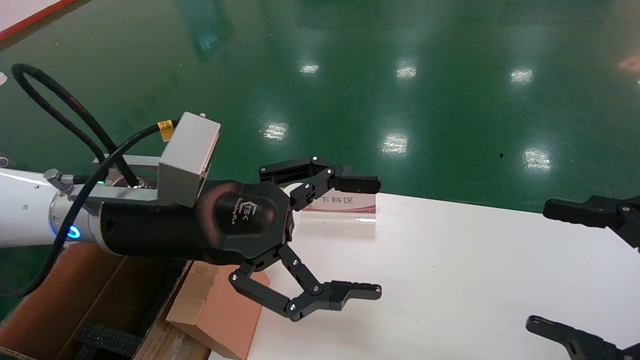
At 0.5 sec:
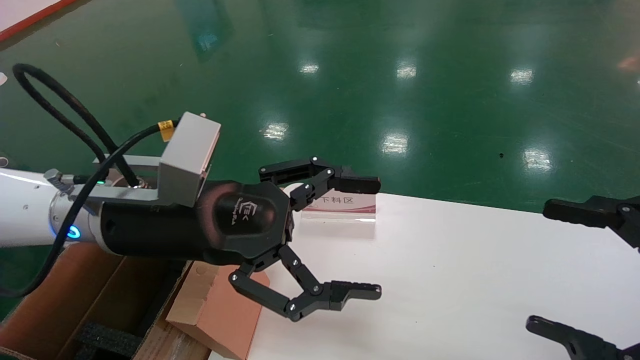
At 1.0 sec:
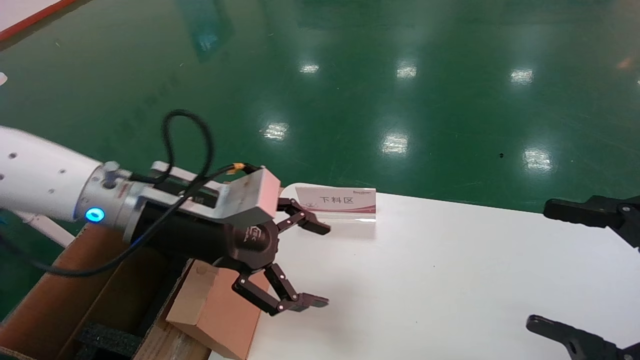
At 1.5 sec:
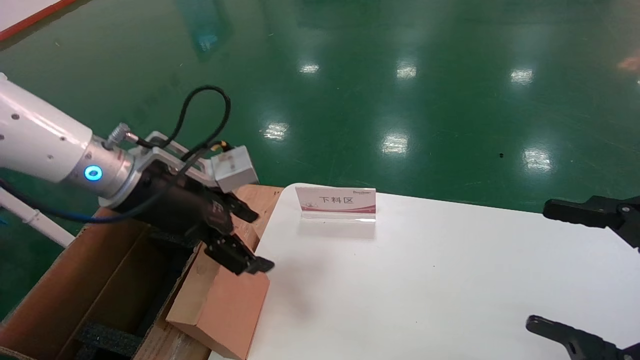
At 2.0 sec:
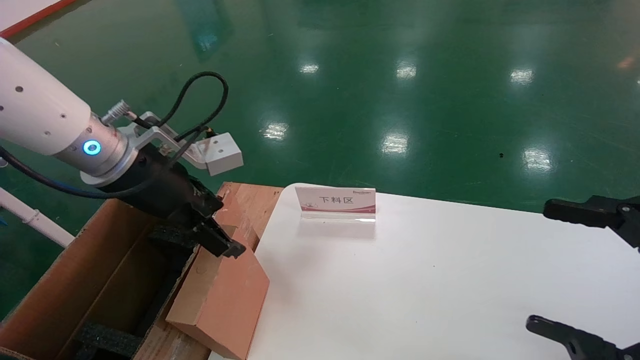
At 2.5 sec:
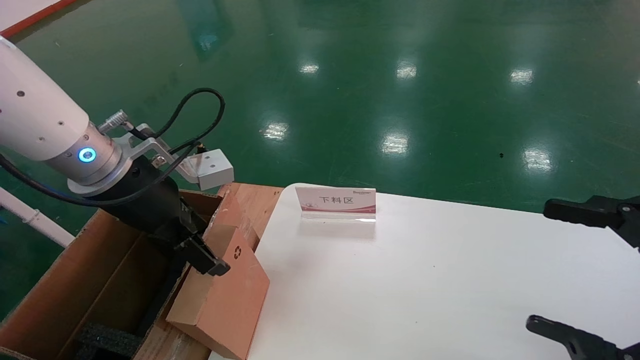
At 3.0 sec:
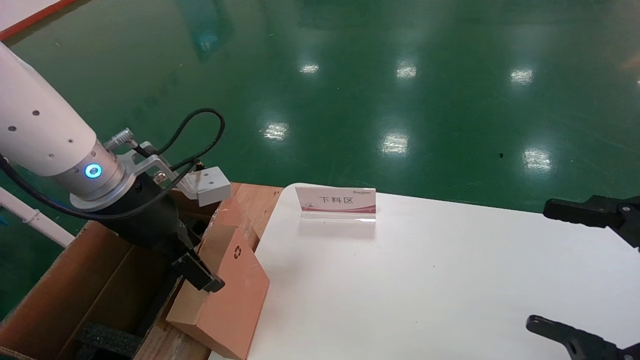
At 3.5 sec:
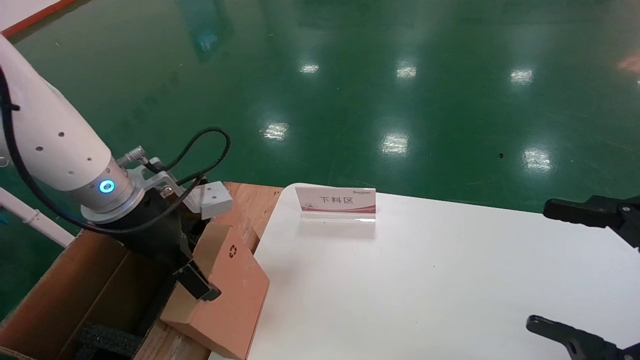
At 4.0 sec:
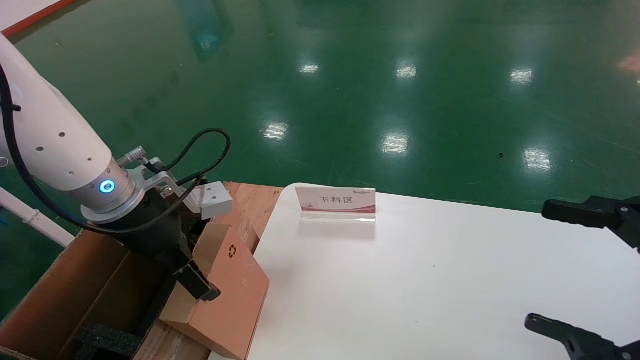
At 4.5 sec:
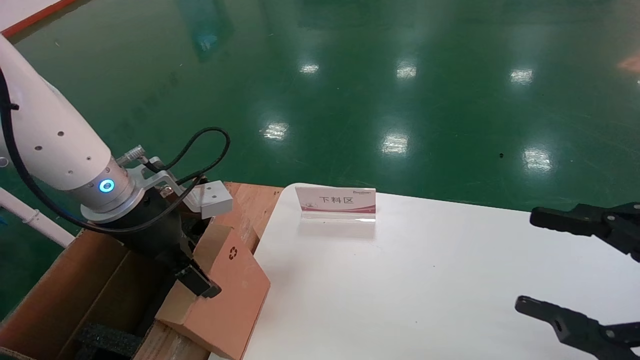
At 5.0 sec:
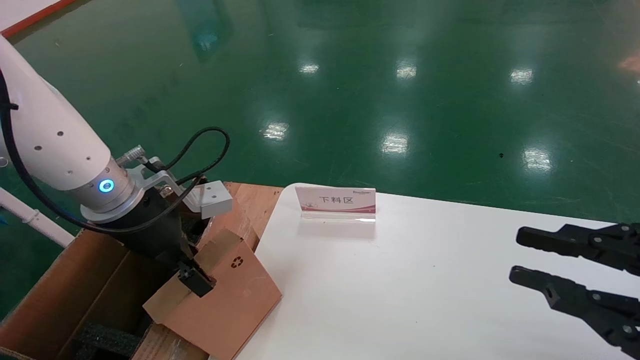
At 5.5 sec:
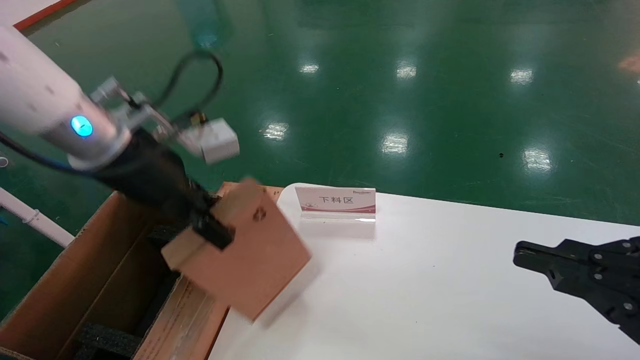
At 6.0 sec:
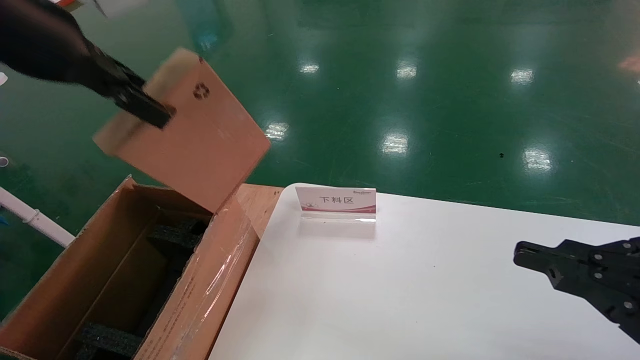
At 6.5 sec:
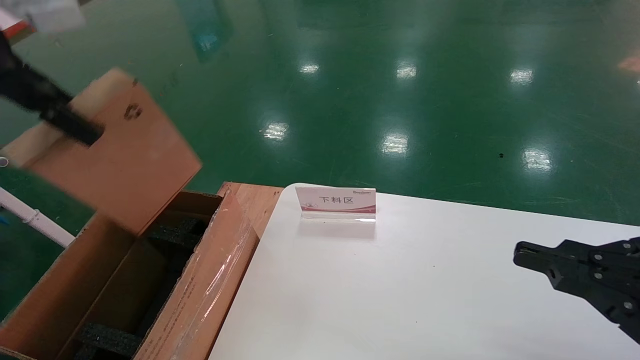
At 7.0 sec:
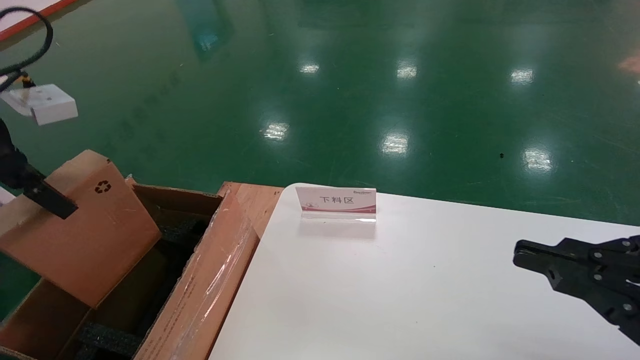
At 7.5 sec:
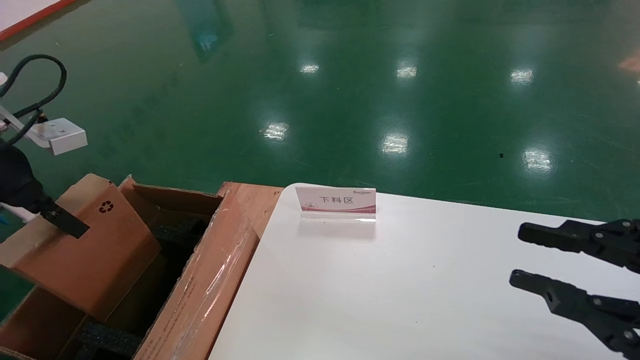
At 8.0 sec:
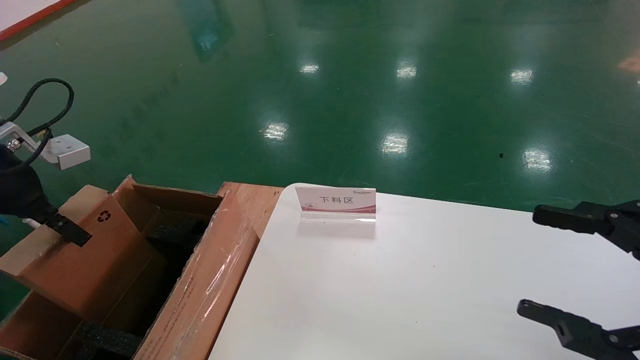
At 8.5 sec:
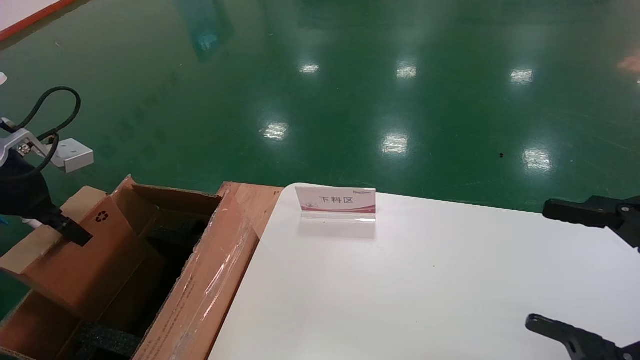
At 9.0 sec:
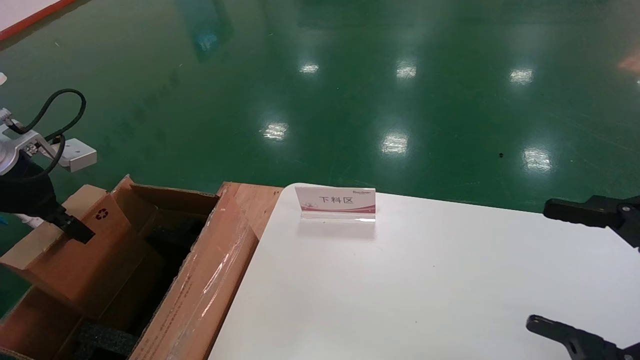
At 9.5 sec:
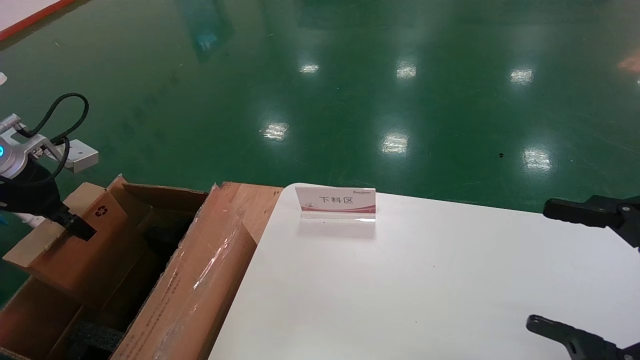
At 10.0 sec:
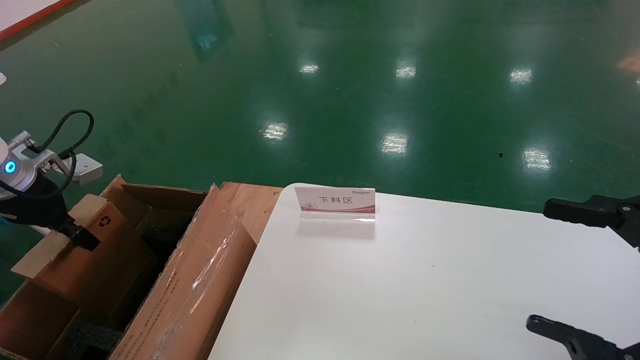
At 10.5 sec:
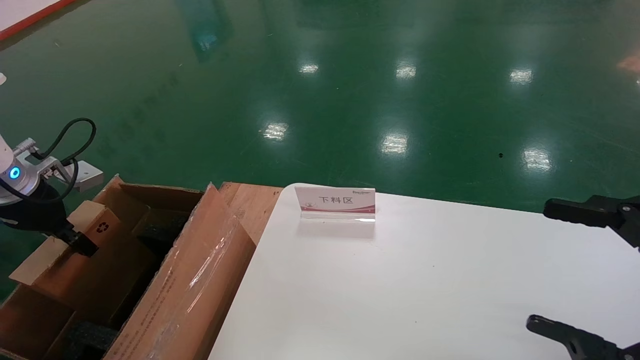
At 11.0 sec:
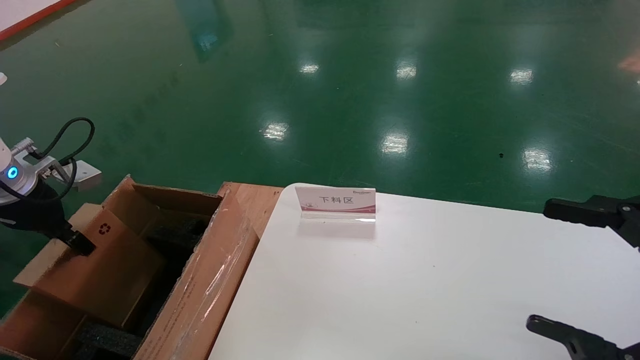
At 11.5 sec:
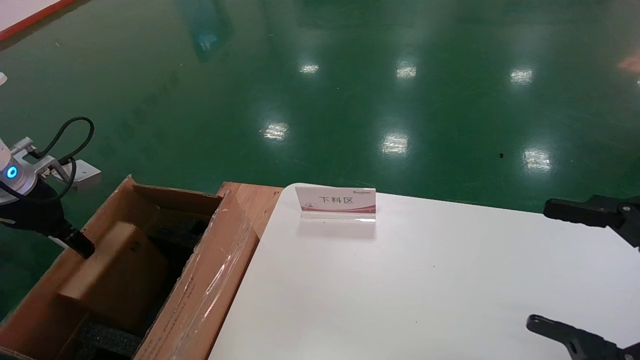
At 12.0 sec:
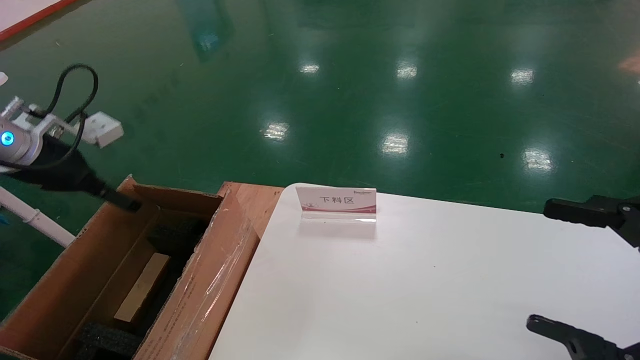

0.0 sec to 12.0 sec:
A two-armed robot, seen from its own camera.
Task of the whole recording: pick up the small cardboard box and load it into the large cardboard box.
Step, 1.0 sec to 5.0 sec: Pick up the mouse and power cord box.
Step, 5.5 sec to 11.5 sec: Place the mouse and power cord box into the case.
0.0 sec to 2.0 sec: The left gripper is displaced to the left and forward by some 10 cm.
2.0 sec to 4.0 sec: The grippers make only small movements.
4.0 sec to 6.0 sec: The left gripper travels upward by some 20 cm, and closes. Meanwhile the right gripper closes.
6.0 sec to 8.0 sec: The right gripper opens up; the left gripper heads downward and to the left, covering some 20 cm.
8.0 sec to 10.0 sec: The right gripper opens up; the left gripper travels downward by roughly 5 cm.
10.0 sec to 12.0 sec: The left gripper shifts by roughly 5 cm, and opens up.

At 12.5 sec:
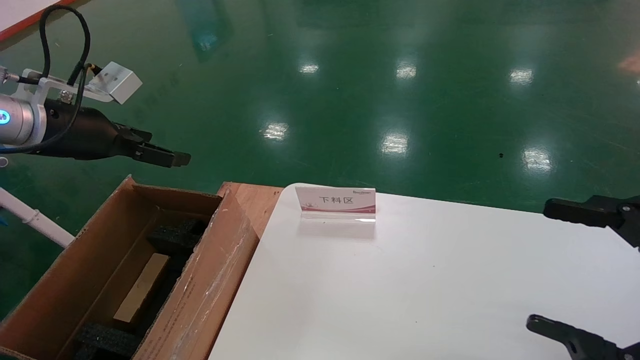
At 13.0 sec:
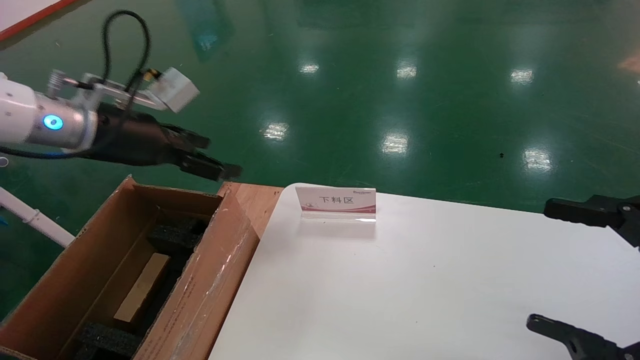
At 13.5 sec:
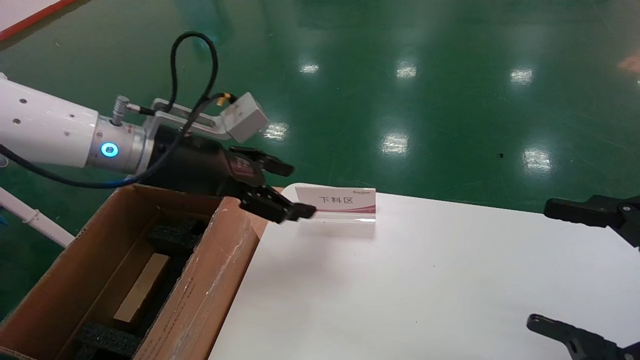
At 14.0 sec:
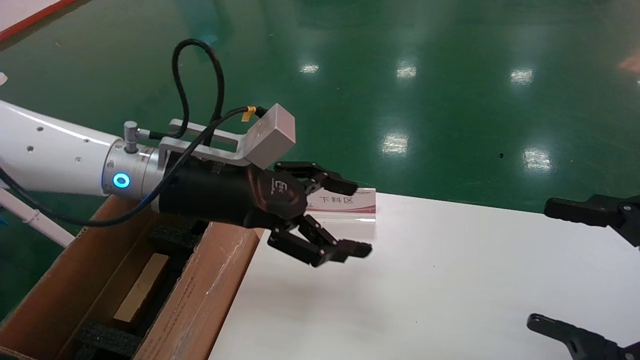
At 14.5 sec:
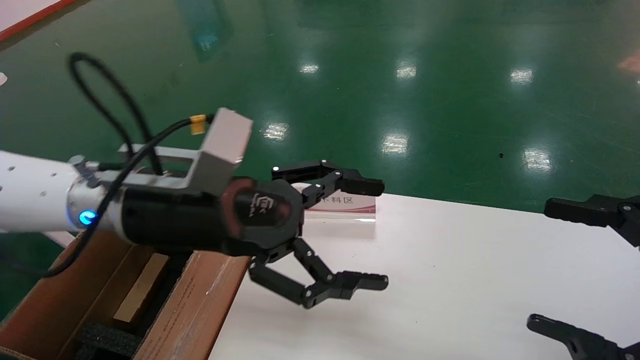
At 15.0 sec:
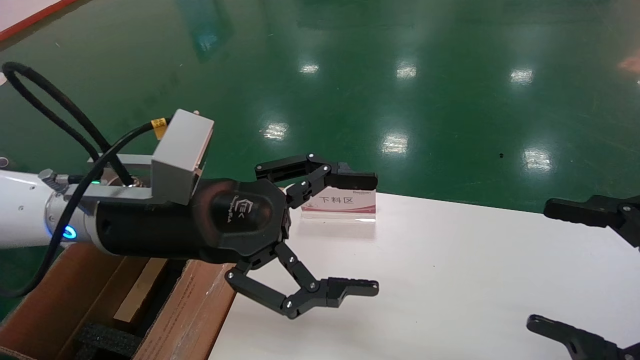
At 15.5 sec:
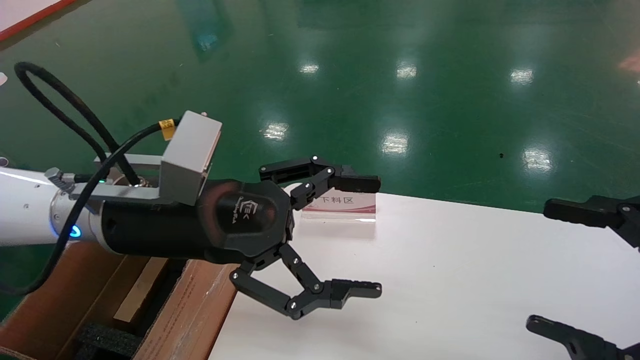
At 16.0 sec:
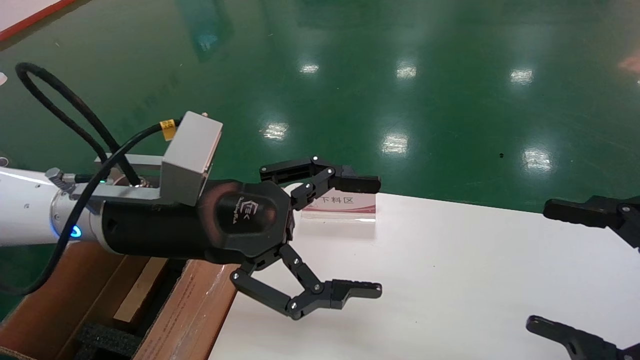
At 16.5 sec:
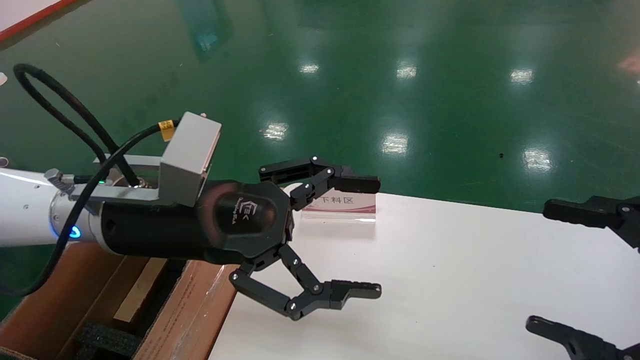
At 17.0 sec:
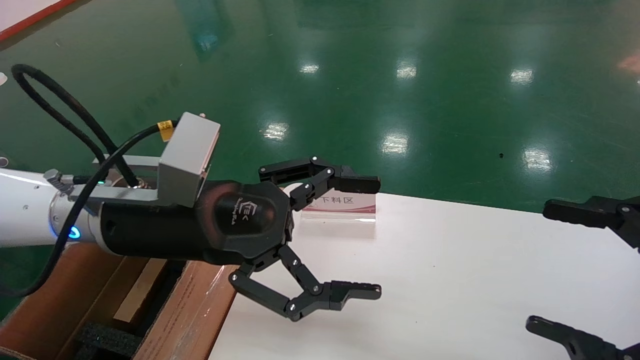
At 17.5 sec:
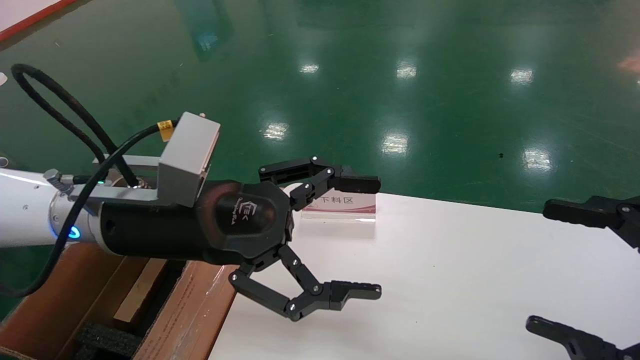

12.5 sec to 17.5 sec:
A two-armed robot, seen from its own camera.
Task of the whole recording: pick up the small cardboard box and load it into the large cardboard box.
12.5 sec to 15.0 sec: The left gripper is displaced to the right by some 20 cm.
15.0 sec to 17.5 sec: Both grippers stay about where they are.
